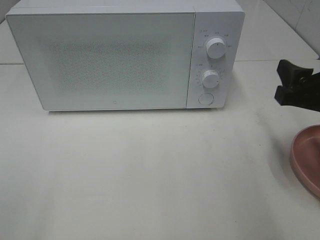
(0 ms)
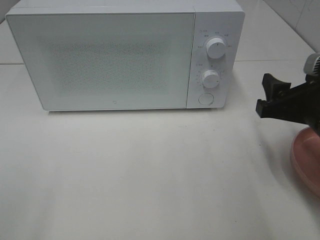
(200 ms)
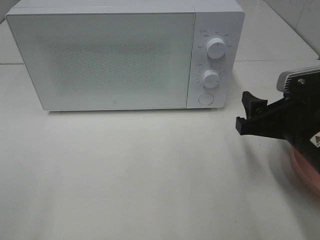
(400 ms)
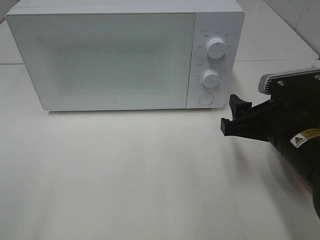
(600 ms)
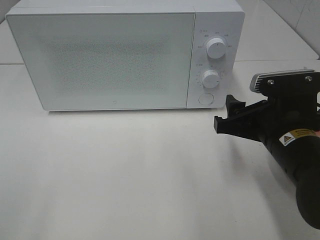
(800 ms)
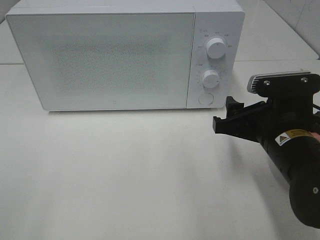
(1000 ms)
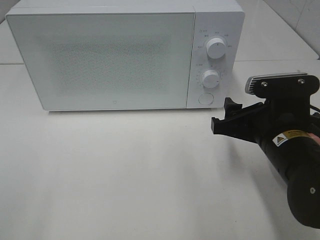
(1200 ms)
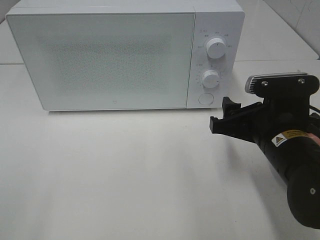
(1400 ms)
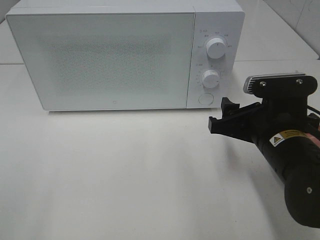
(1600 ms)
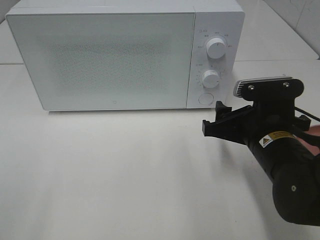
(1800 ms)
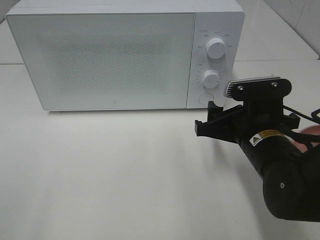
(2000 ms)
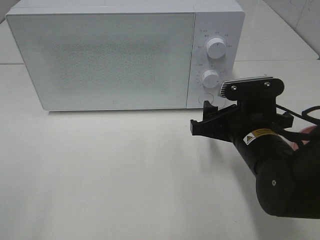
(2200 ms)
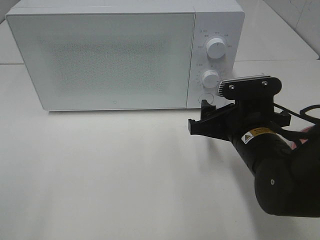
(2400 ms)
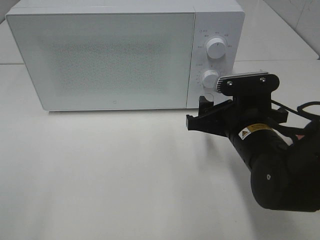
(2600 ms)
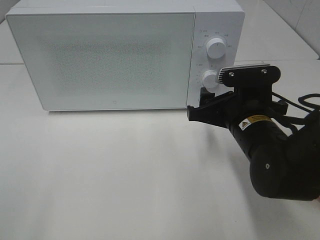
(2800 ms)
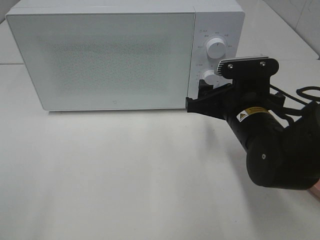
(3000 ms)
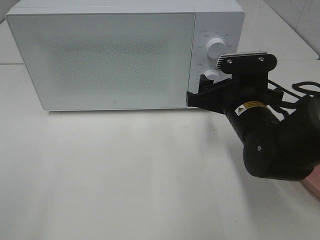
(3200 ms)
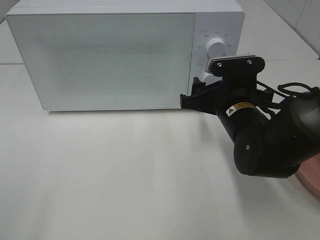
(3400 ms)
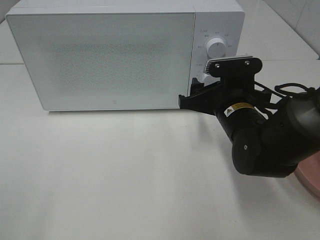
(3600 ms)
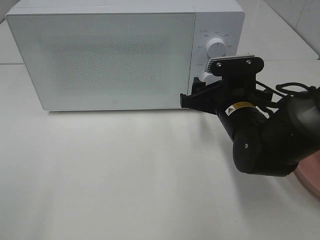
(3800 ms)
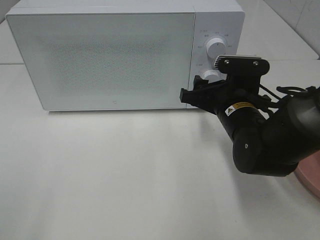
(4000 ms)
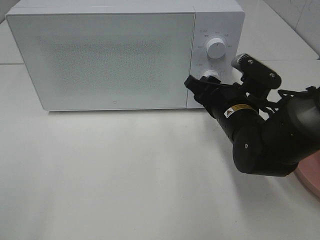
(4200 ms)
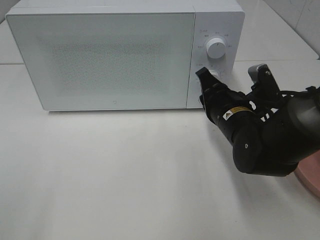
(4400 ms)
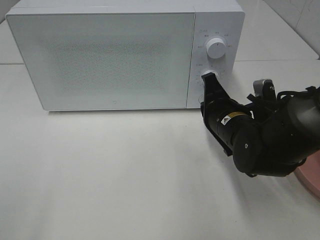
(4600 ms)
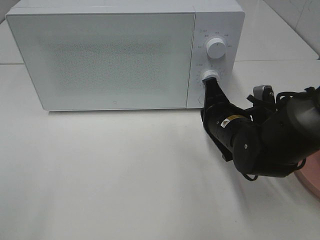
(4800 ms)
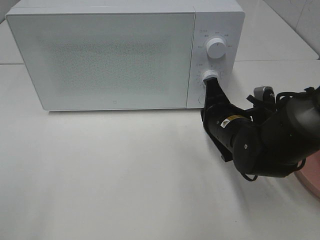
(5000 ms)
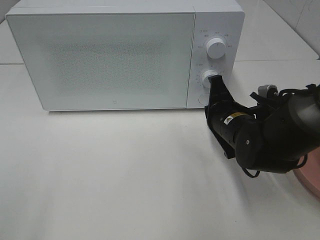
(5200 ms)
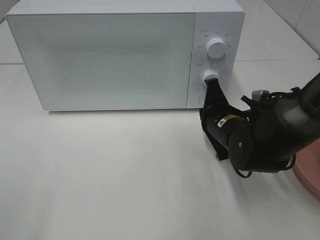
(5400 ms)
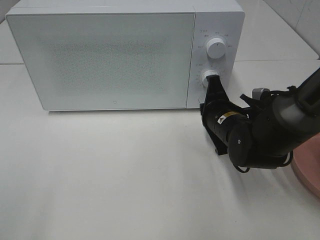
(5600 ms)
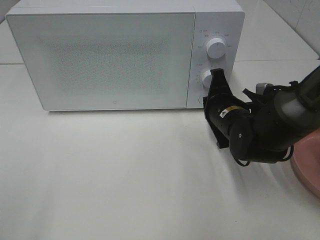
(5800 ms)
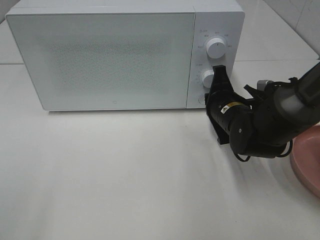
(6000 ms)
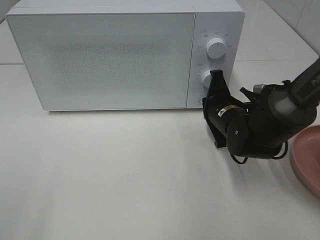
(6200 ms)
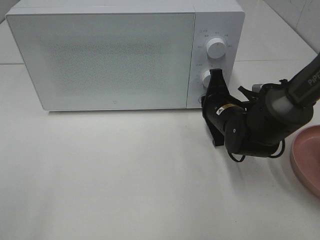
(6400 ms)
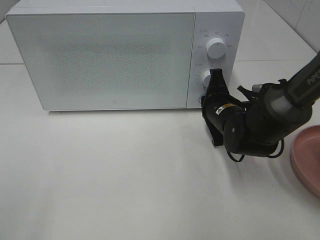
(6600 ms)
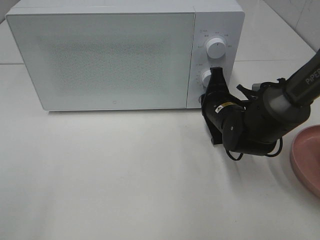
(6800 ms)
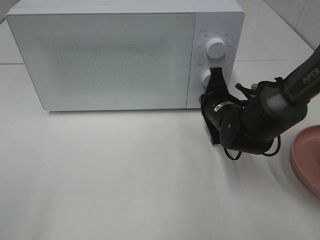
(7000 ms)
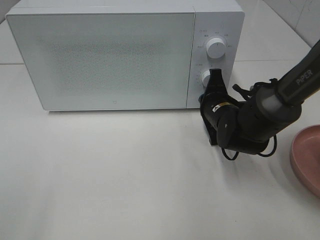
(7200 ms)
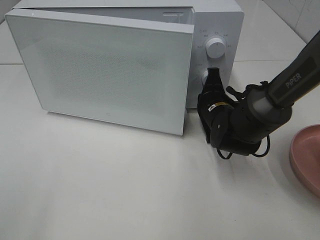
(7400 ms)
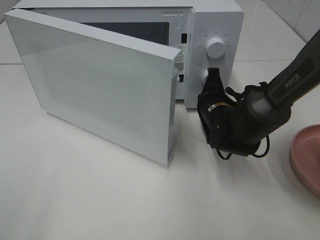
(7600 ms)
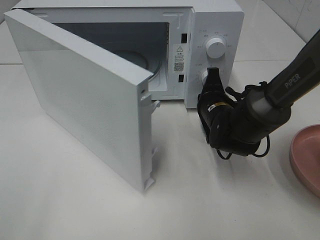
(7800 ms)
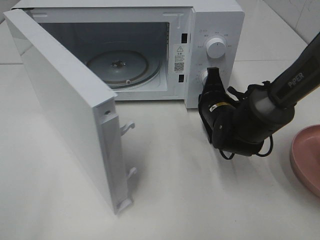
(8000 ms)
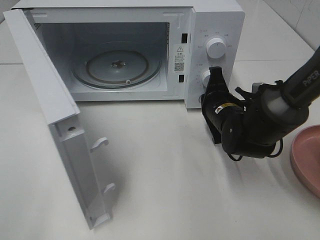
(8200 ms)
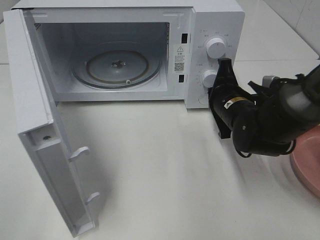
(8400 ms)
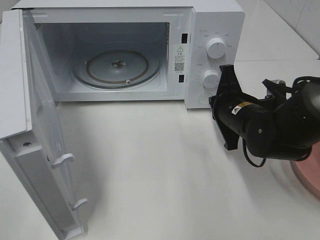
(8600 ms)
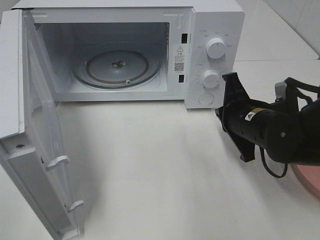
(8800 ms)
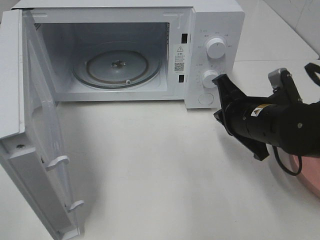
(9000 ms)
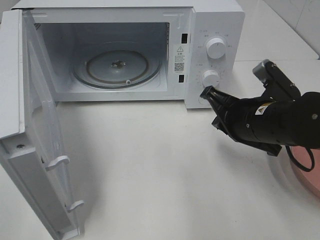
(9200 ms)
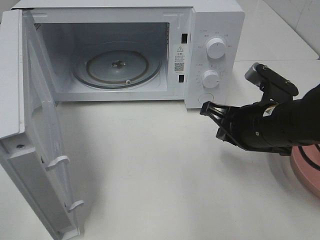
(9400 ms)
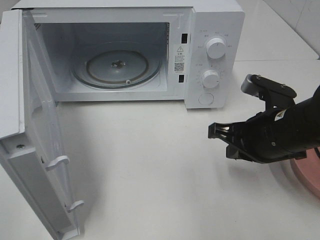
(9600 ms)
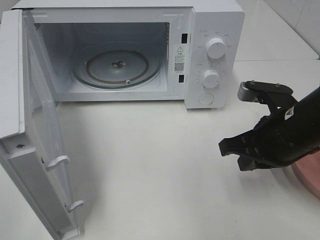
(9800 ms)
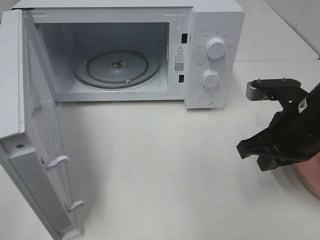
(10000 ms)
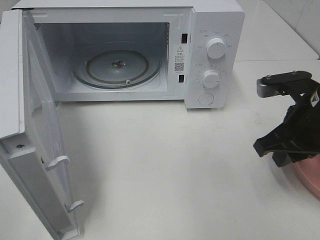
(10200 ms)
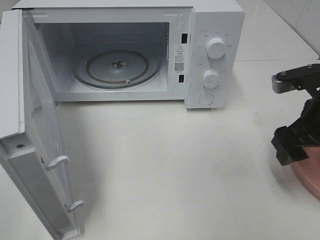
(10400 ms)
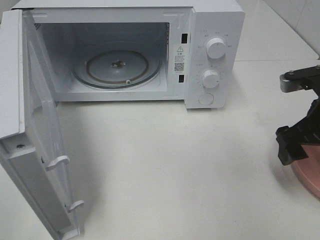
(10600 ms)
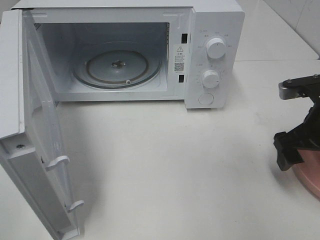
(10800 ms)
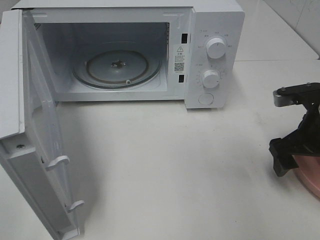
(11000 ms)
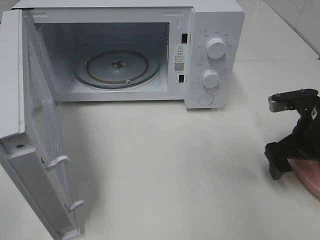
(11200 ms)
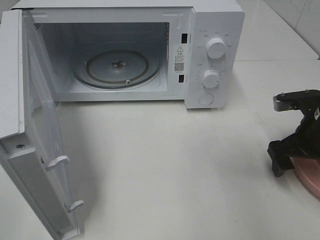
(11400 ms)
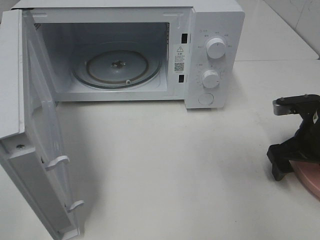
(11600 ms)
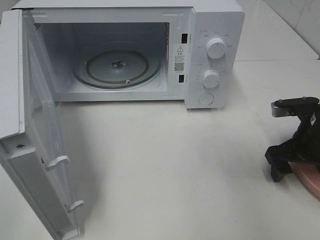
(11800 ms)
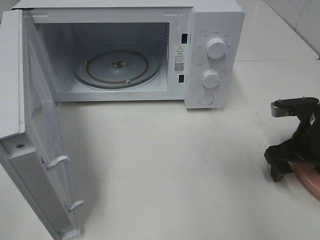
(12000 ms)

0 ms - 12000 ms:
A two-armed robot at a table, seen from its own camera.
Task of the whole recording: Heat the burger.
Step, 0 ms - 8200 ms: Right hand: press the switch.
0 ms - 1600 ms: The right gripper travels to the left and downward by some 10 cm.
1600 ms - 3000 ms: The right gripper moves approximately 5 cm.
3000 ms - 4400 ms: The right gripper closes.
7600 ms - 9000 ms: The right gripper shifts about 10 cm backward and upward.
9000 ms - 10400 ms: The right gripper heads to the right, covering roughly 10 cm, and opens up.
10400 ms - 12000 ms: The right gripper shifts approximately 10 cm downward.

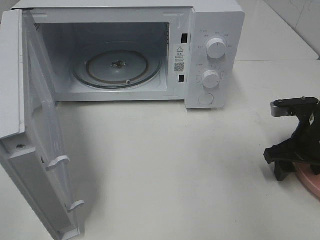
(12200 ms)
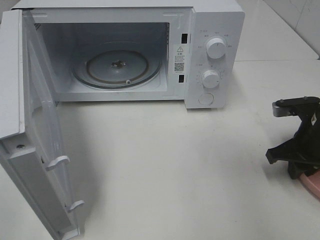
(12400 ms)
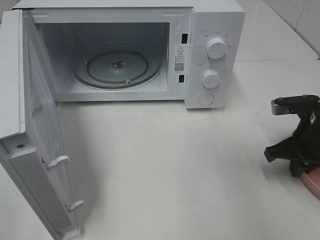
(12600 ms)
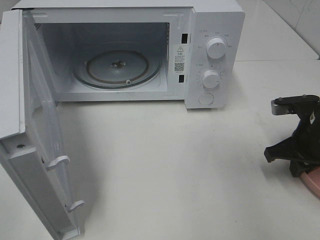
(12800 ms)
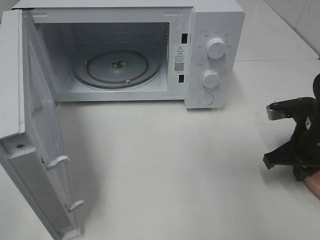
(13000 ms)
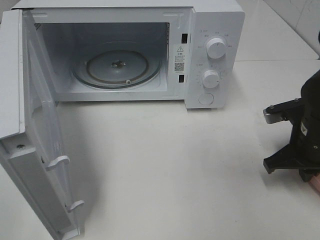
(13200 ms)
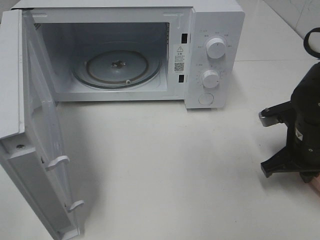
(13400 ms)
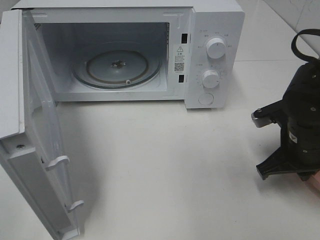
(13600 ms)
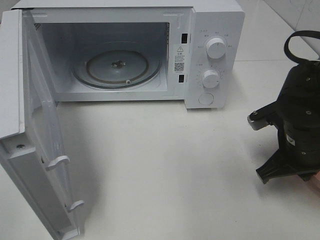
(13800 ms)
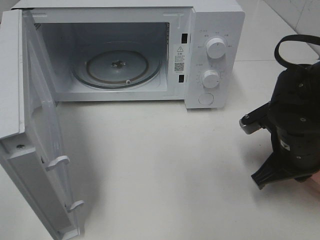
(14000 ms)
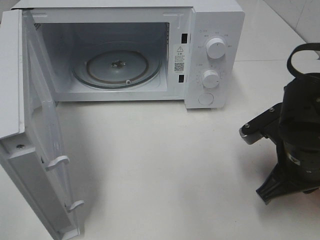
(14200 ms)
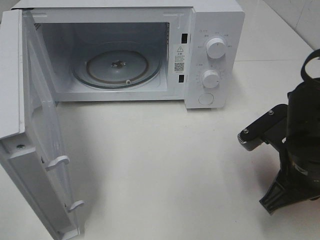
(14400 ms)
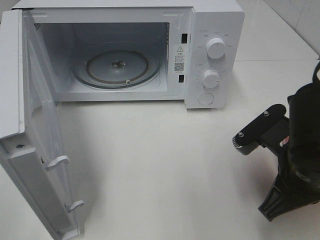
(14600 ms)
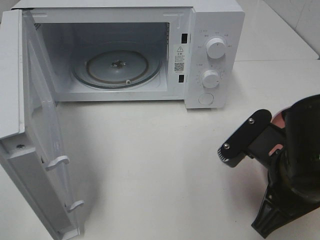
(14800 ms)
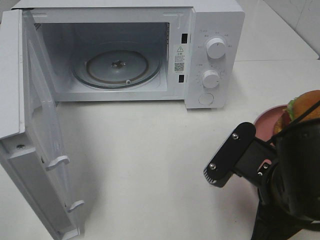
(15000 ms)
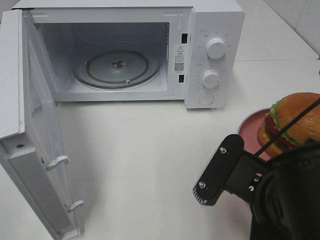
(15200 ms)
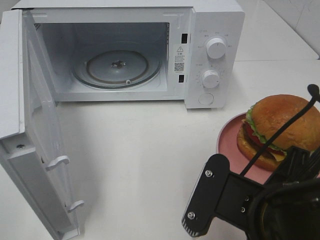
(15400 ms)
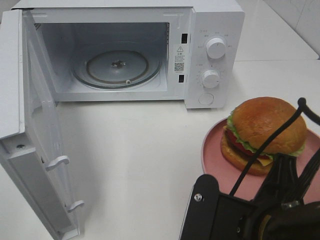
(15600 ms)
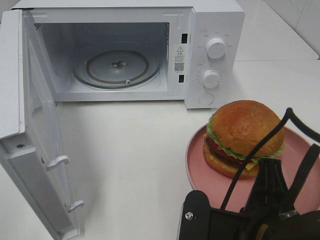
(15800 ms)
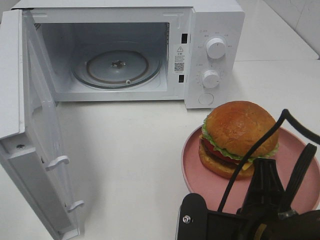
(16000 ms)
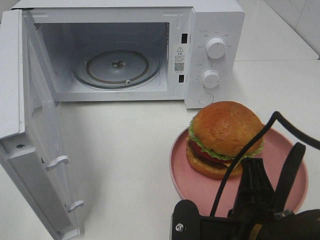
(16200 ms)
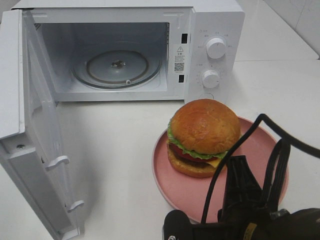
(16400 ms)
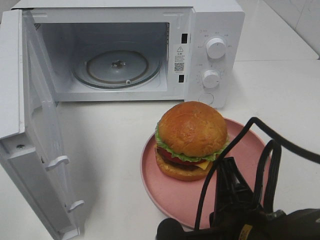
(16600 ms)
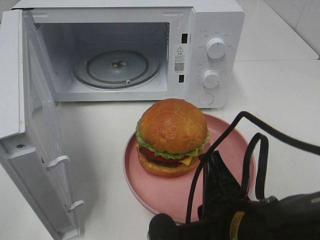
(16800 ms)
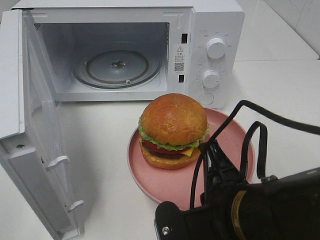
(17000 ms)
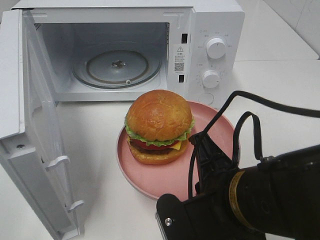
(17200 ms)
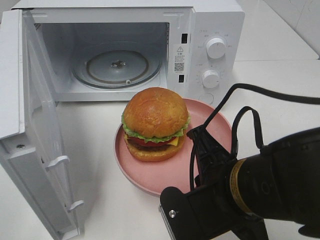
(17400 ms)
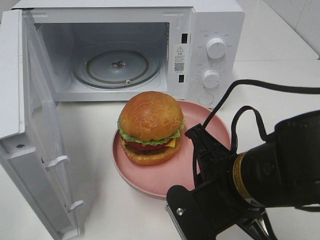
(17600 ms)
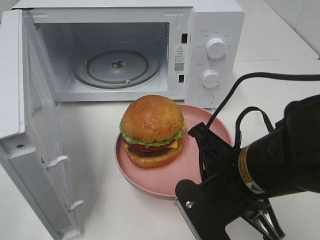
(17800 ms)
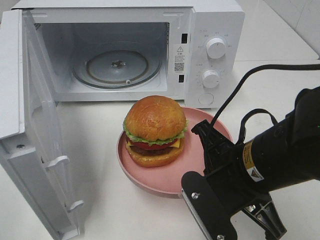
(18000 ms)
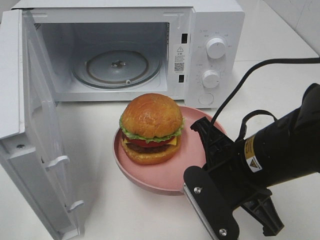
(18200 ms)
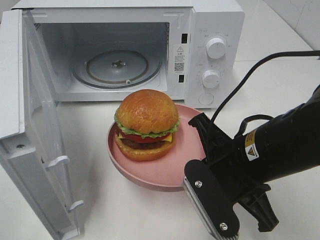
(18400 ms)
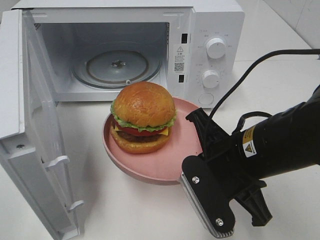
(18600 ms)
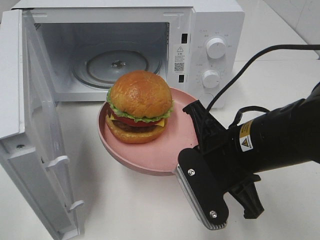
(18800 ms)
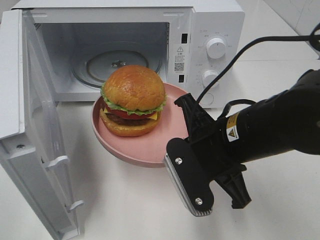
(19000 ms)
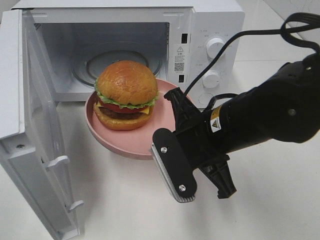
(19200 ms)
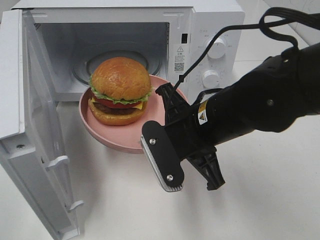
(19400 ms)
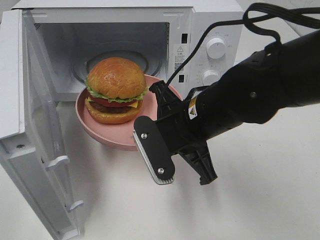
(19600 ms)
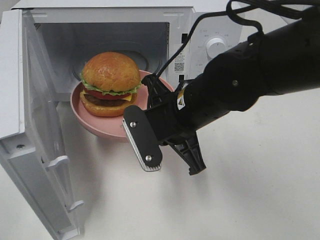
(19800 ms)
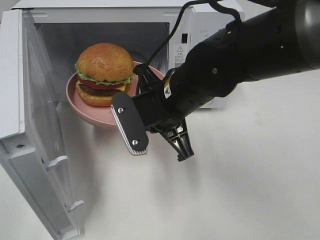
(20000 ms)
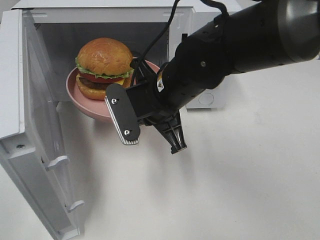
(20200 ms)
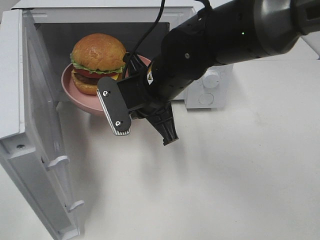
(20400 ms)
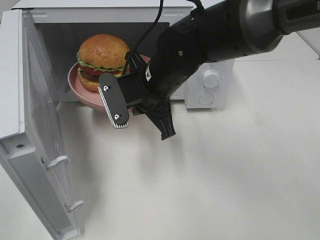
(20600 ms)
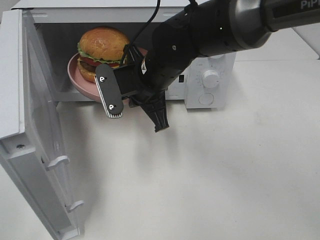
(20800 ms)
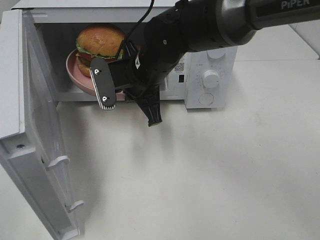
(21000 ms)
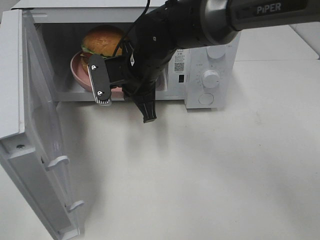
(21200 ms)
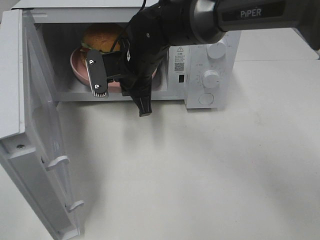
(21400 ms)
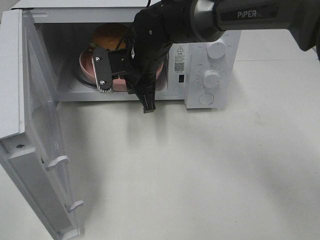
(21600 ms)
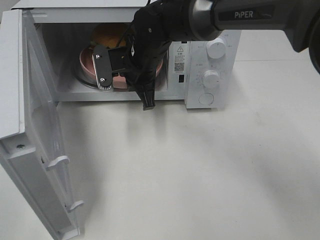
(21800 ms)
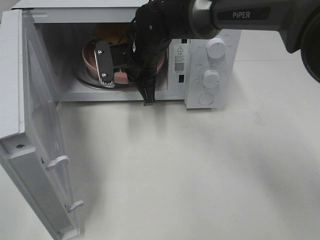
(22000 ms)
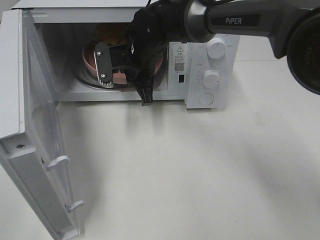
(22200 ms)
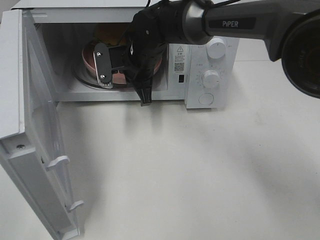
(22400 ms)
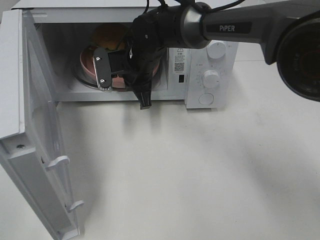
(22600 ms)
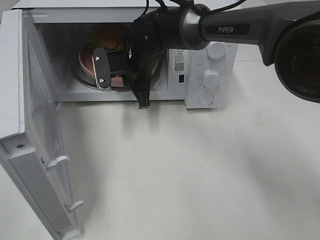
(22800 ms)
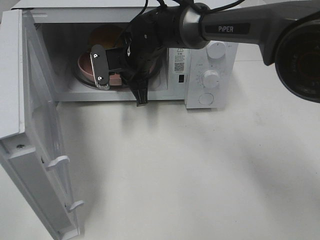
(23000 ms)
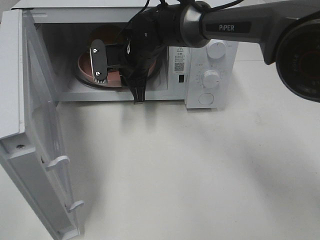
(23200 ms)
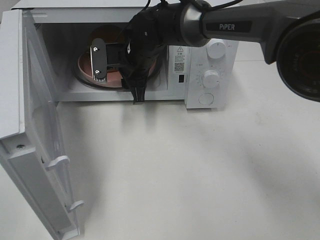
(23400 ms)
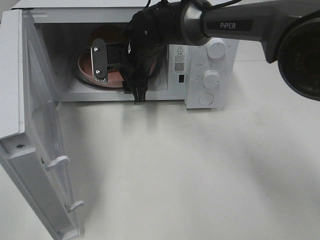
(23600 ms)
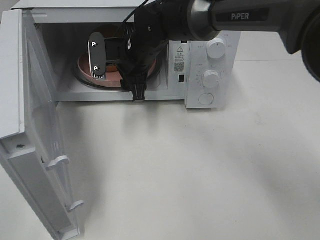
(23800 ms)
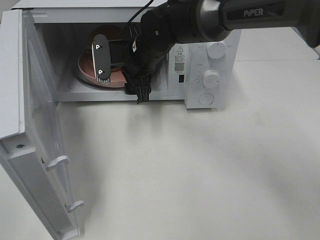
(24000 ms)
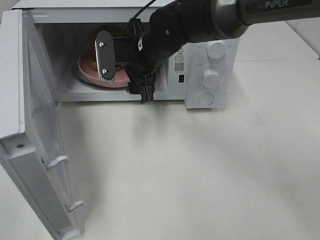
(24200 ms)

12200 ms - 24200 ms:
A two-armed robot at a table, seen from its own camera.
Task of the whole recording: Heat the burger.
Step, 13200 ms - 23200 ms: Right hand: place the plate in the microwave.
12200 ms - 13800 ms: The right gripper is displaced to the left by some 5 cm, and closes up.
13800 ms - 15200 ms: The right gripper shifts approximately 15 cm backward and to the left.
15200 ms - 16600 ms: The right gripper moves roughly 5 cm.
16600 ms - 18200 ms: The right gripper is displaced forward by approximately 10 cm.
18200 ms - 19800 ms: The right gripper travels forward and to the left by approximately 10 cm.
19800 ms - 21200 ms: The right gripper goes about 15 cm forward and to the left.
21200 ms - 22600 ms: The right gripper goes about 5 cm forward.
22600 ms - 24200 ms: The right gripper shifts by some 5 cm, and opens.
